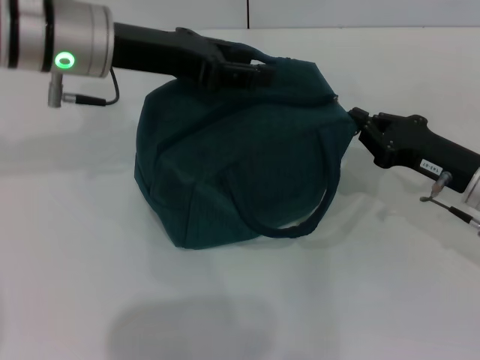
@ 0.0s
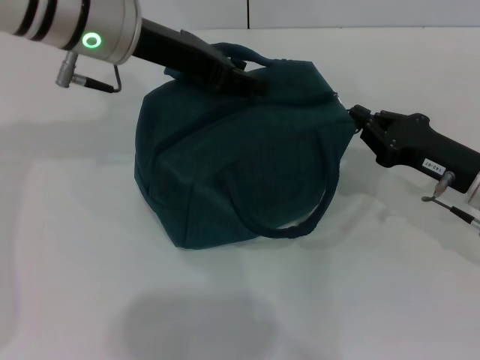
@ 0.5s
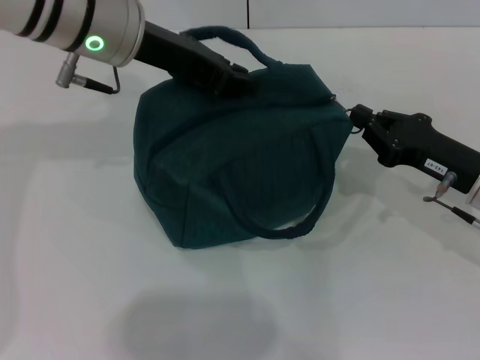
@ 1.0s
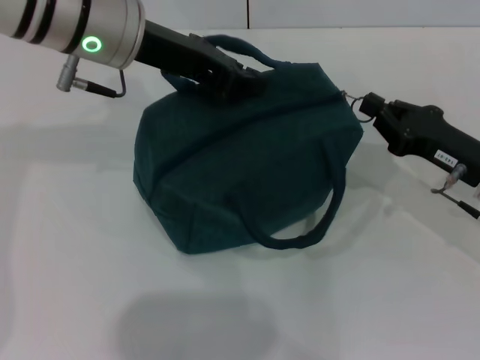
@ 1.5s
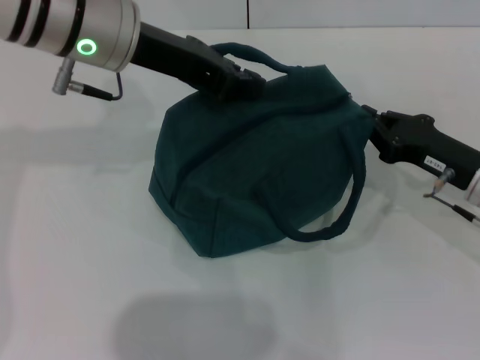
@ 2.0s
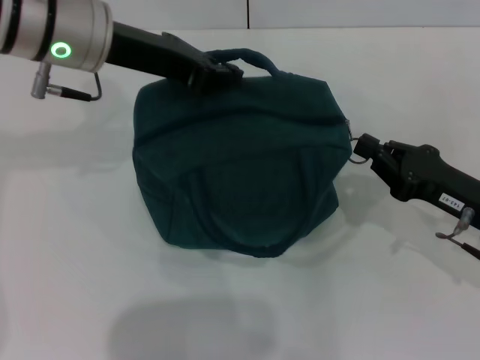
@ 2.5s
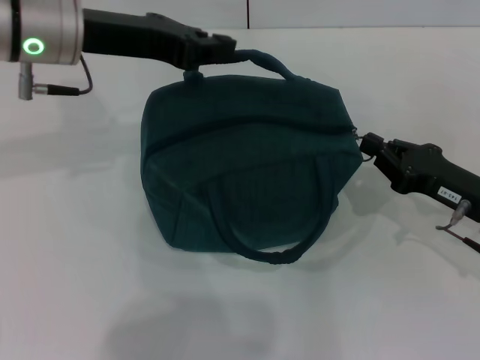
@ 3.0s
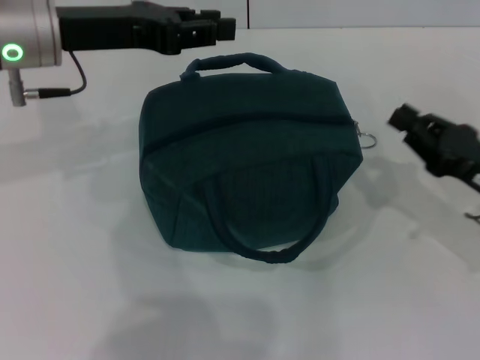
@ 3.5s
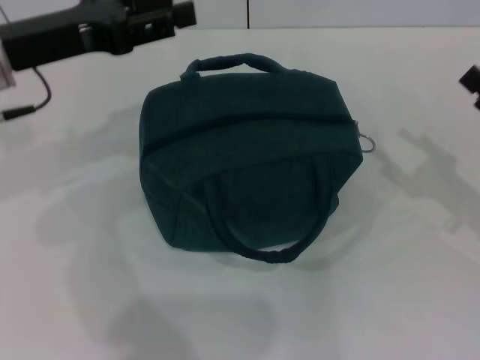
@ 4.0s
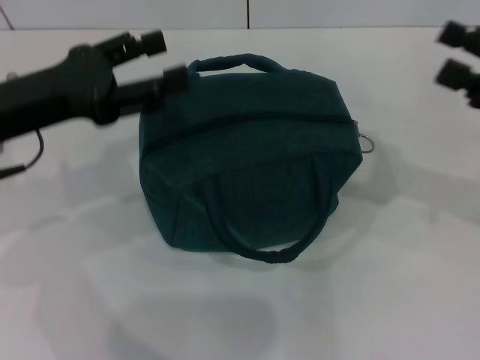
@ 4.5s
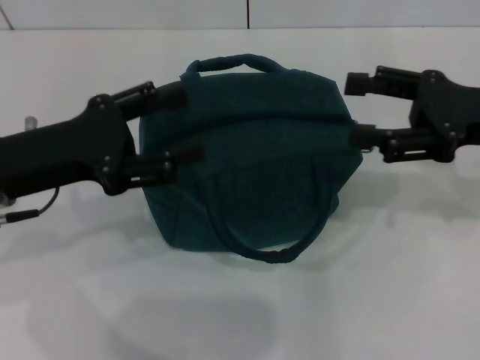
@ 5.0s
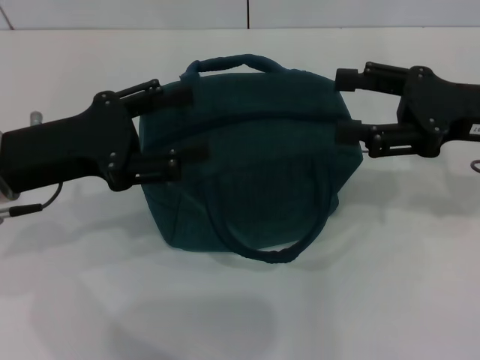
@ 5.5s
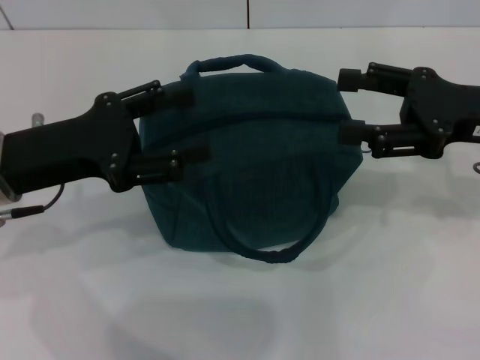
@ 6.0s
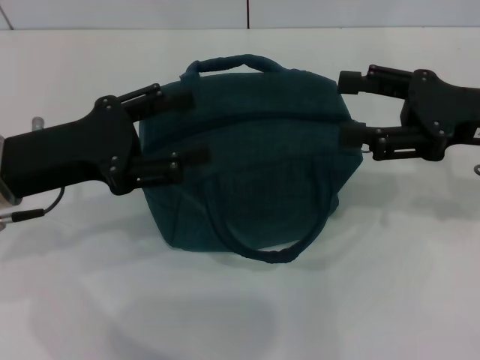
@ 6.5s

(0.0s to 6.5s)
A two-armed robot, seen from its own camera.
Step, 0.0s - 3.0s: Hold the lunch bag with your left hand.
0.0s - 2.0s: The left gripper closes.
2.0s - 4.5s: The left gripper goes about 15 cm to the left, backward and downward, and opens, while the right gripper goes approximately 10 cm upward and to the right, and opens up.
4.5s - 6.5s: The right gripper is displaced to the left by roughly 5 cm.

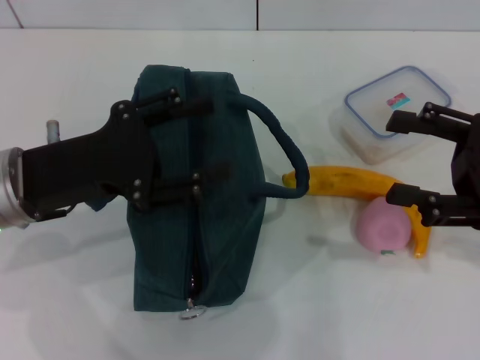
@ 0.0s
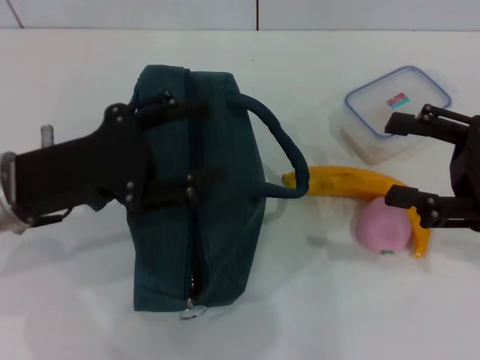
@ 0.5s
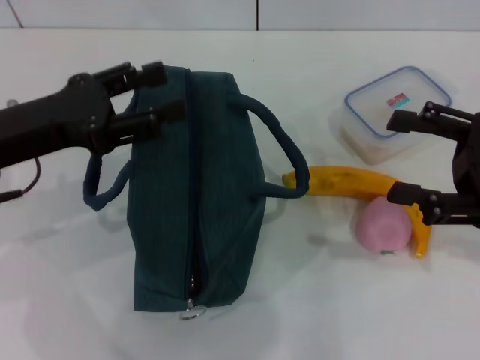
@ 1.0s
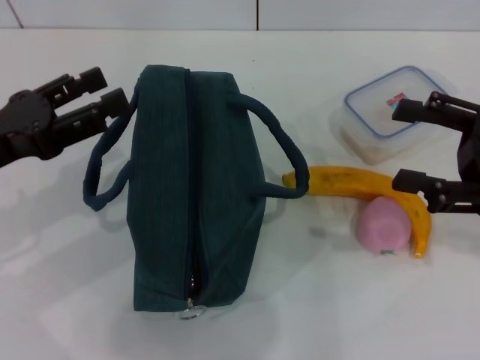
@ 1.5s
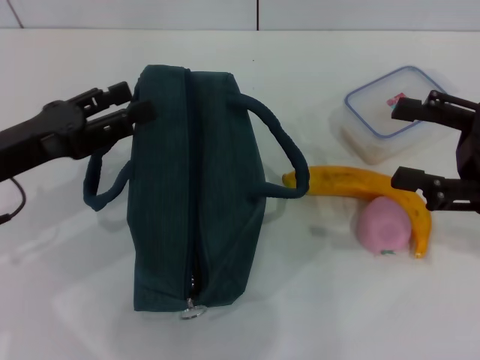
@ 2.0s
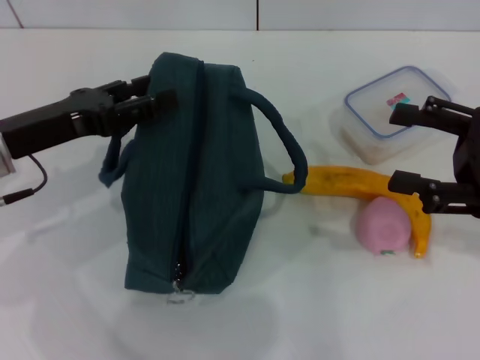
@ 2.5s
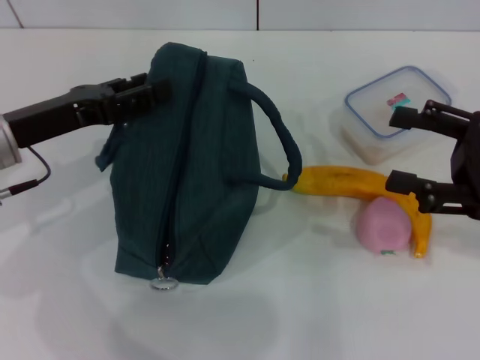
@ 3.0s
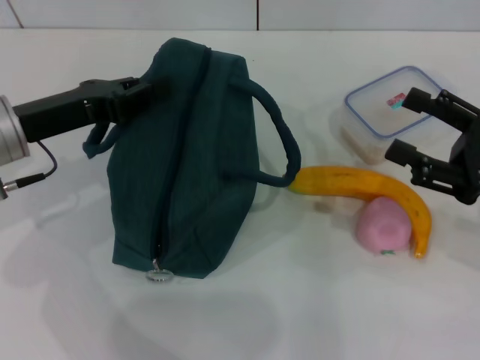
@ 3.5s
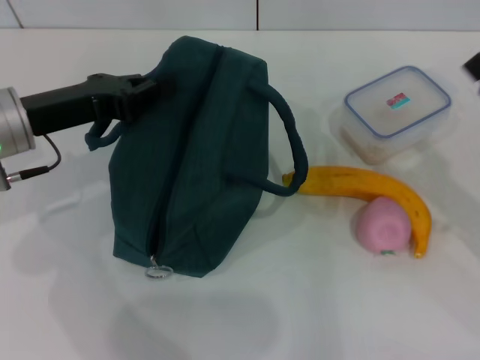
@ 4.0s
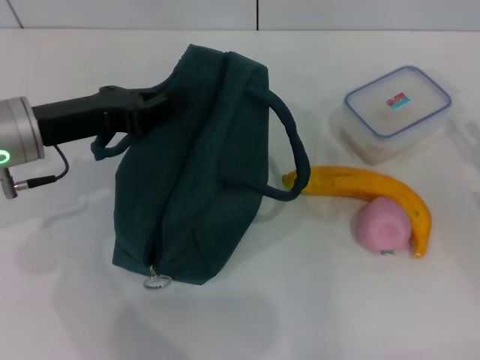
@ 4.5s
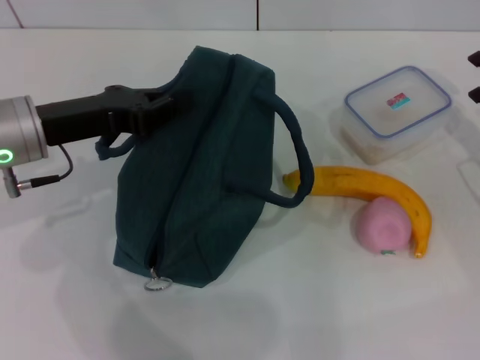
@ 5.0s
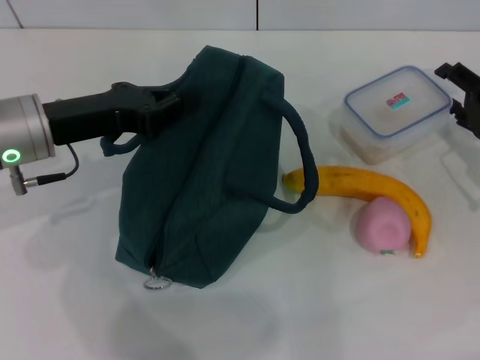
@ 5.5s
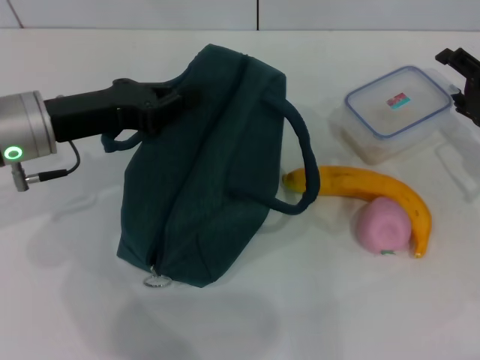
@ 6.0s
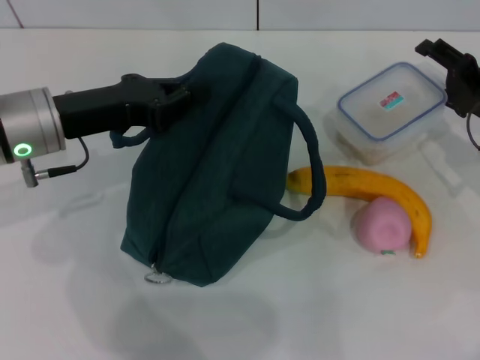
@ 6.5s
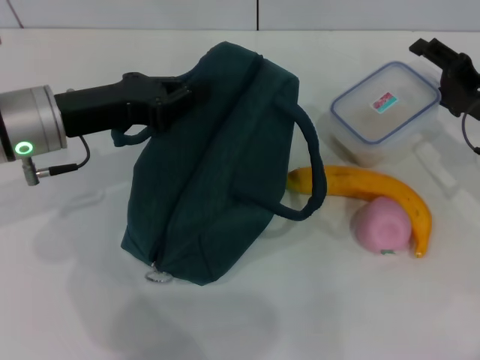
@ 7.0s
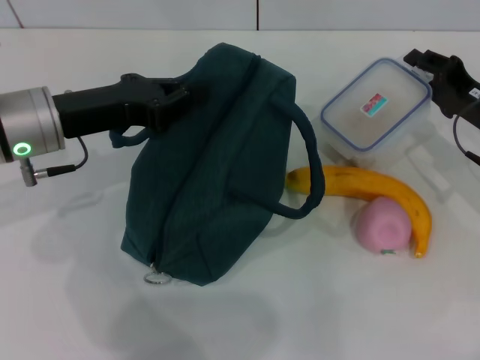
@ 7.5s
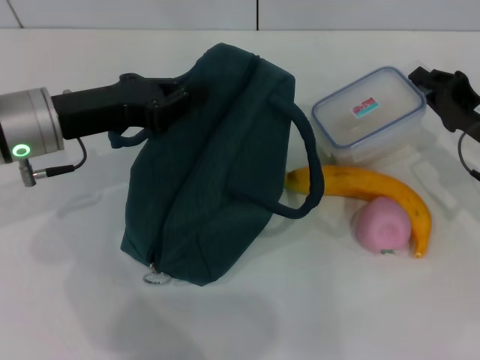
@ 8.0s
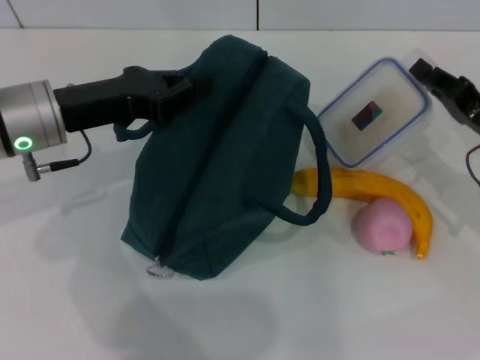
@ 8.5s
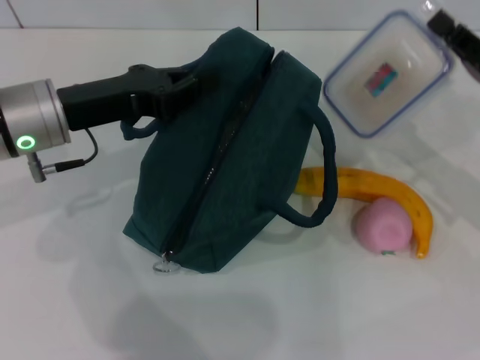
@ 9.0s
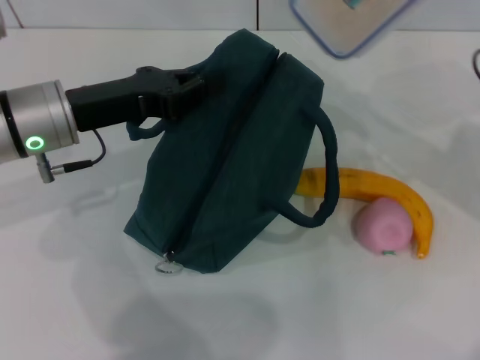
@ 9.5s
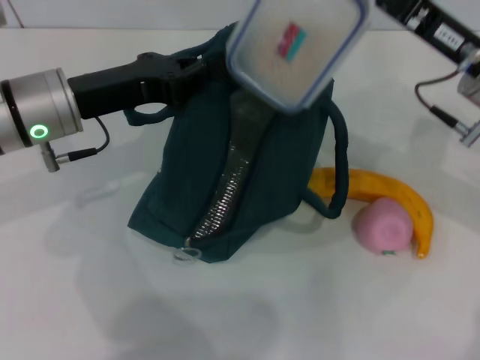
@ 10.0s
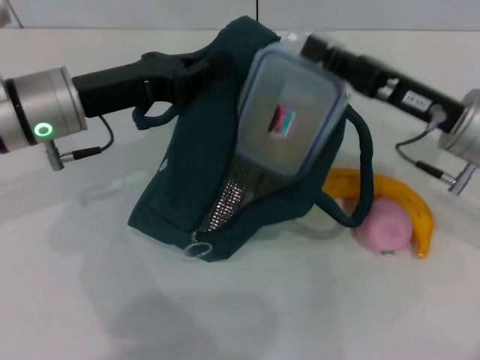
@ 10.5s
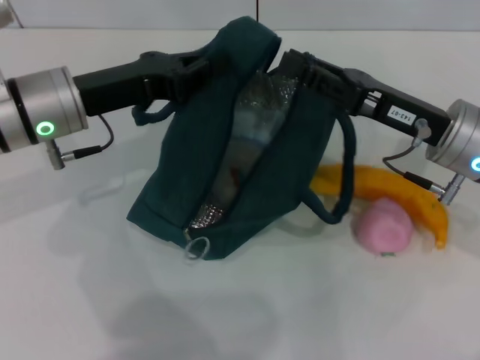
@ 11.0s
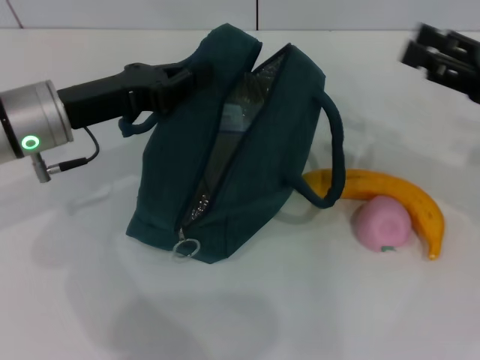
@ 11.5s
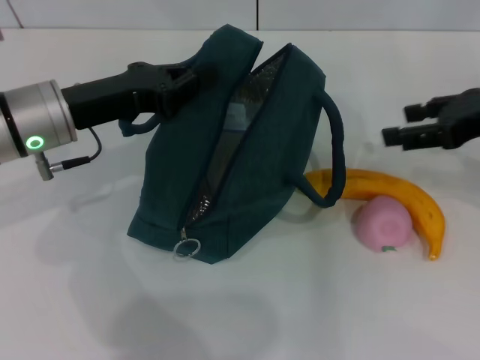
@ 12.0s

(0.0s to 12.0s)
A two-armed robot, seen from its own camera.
Step, 0.0s - 3.5s: Hold the lunch bag with your left hand.
Step, 4.0s - 8.0s: Pick up the lunch box with your right hand.
Step, 8.5s - 10.5s: Place the lunch box into the lunch bag with your right hand.
2.0s - 4.0s: The left gripper travels forward by approximately 5 cm, and closes; the right gripper moves downward, approximately 5 cm.
4.0s - 6.0s: The right gripper shifts some 10 cm forward.
6.0s - 8.0s: The right gripper closes its fingers.
8.0s - 10.0s: The right gripper heads upward and to the left, covering about 10 cm.
10.0s - 12.0s: The right gripper heads to the right, covering roughly 5 cm, and opens its fingers.

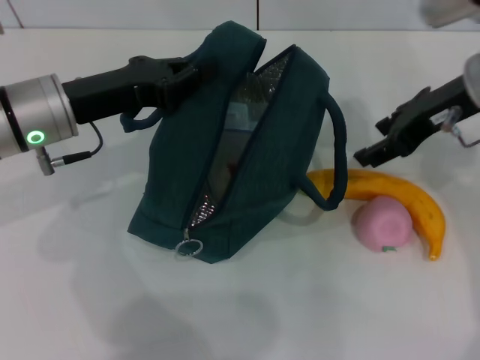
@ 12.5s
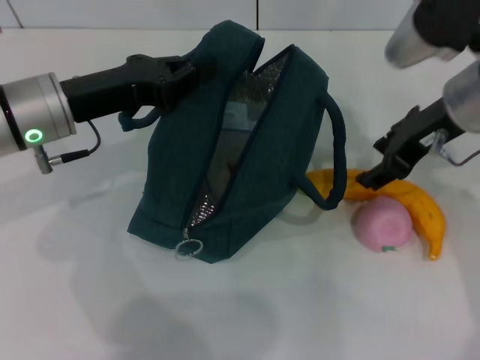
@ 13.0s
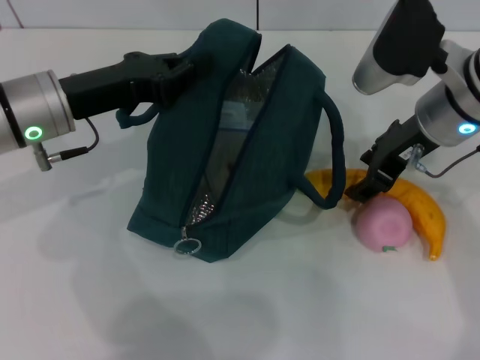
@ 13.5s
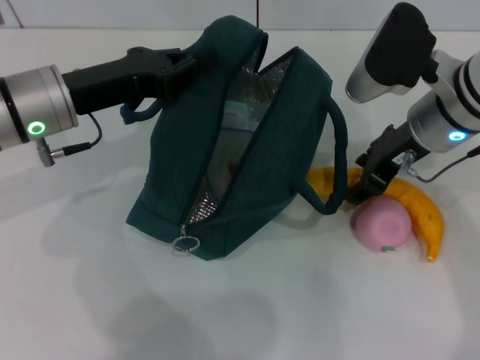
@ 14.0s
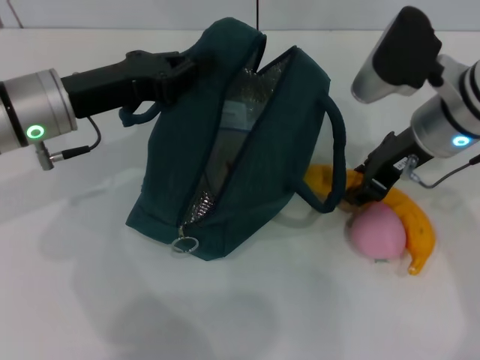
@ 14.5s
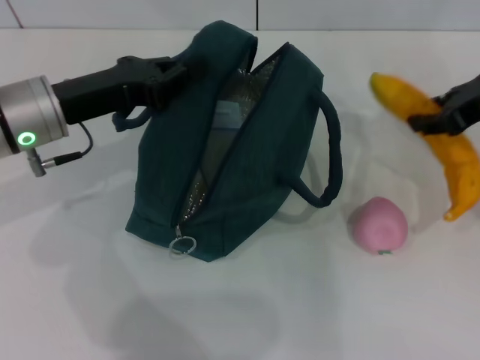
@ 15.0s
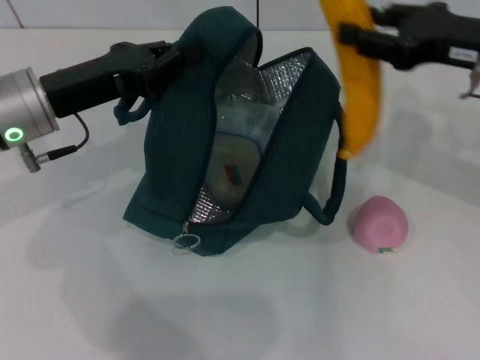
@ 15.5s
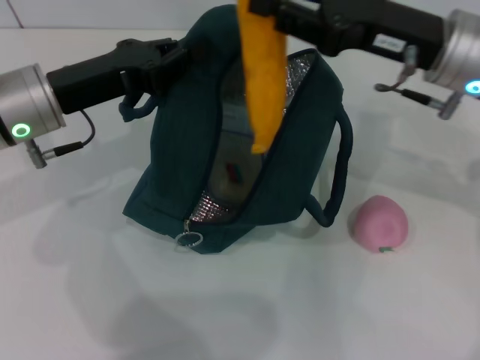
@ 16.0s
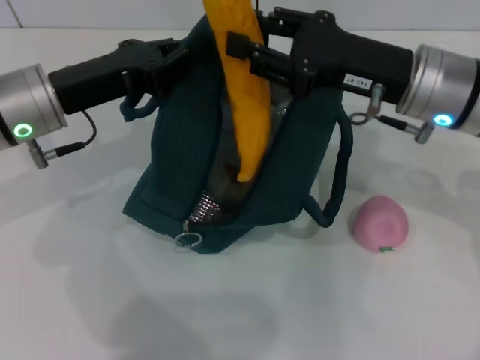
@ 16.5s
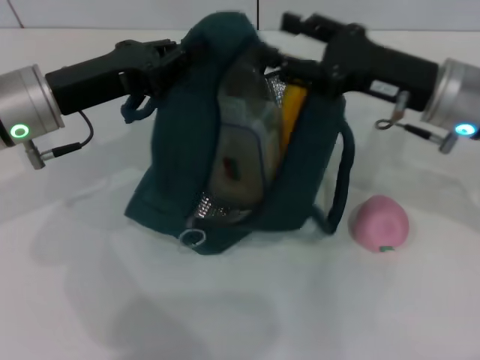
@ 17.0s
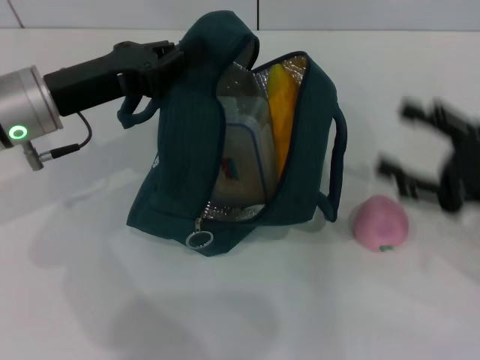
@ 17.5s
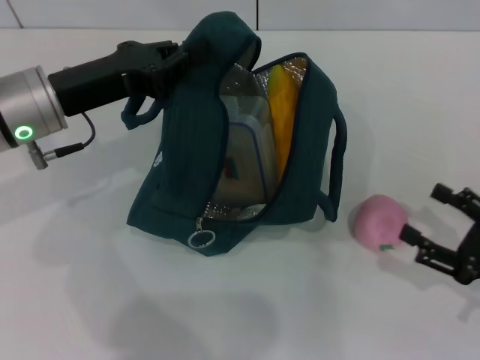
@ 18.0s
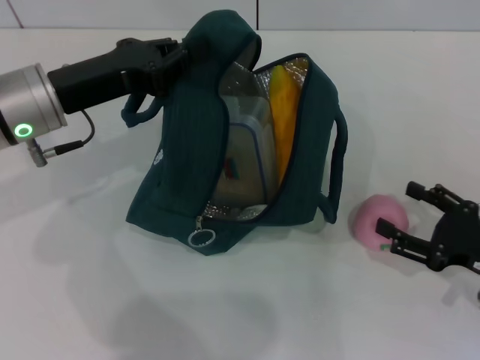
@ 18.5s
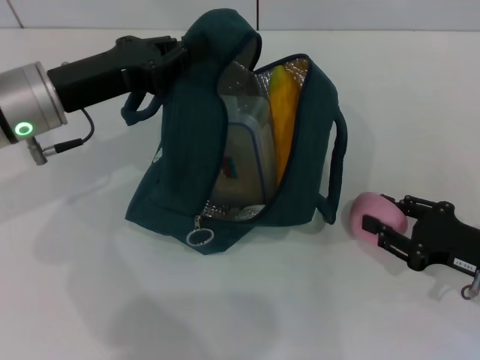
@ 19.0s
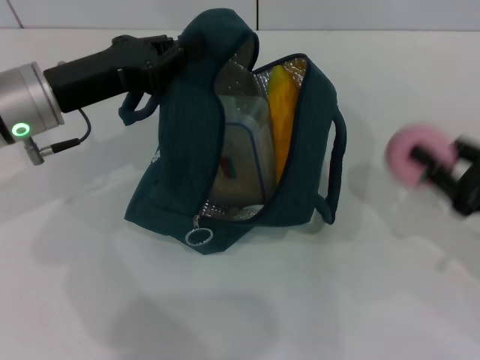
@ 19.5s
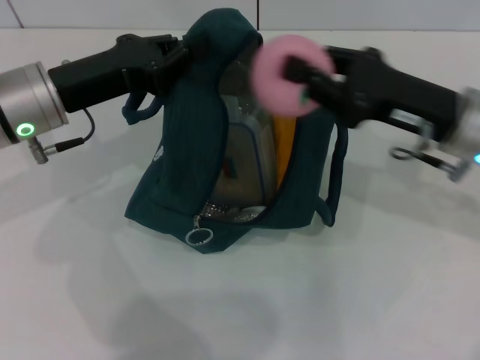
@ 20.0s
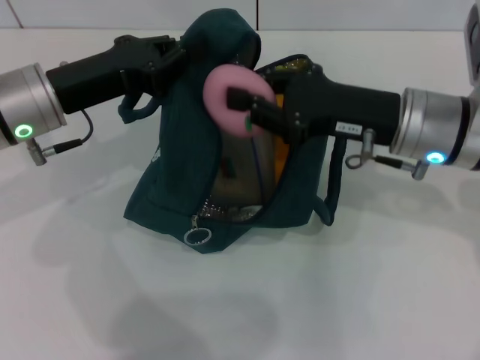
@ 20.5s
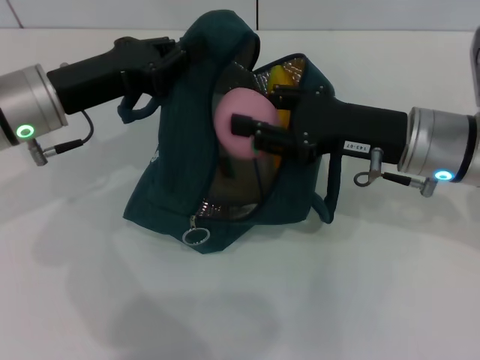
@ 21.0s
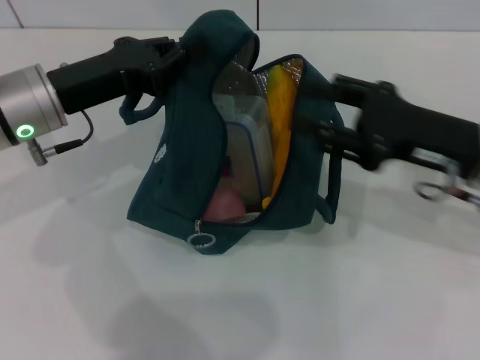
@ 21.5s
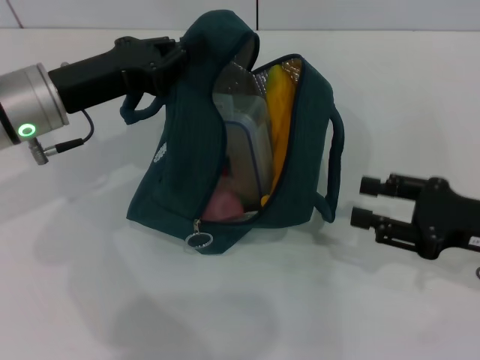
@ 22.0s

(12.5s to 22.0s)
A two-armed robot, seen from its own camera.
Step, 12.5s - 14.5s: Take the banana with your right hand.
Step, 15.0s - 16.5s: Put the banana into the lunch bag with your right hand.
Step, 17.0s - 19.0s: Grab the peach with your right hand.
12.5s - 14.5s: The right gripper heads downward, covering roughly 5 cm.
14.5s - 16.5s: The right gripper travels to the right and back again, about 10 cm each way.
16.5s - 18.0s: The right gripper moves to the right, backward and downward, roughly 25 cm, and opens.
18.0s - 20.0s: The right gripper moves forward, to the left and upward, some 20 cm, and closes up.
20.0s - 22.0s: The right gripper travels to the right and backward by about 10 cm, and opens.
